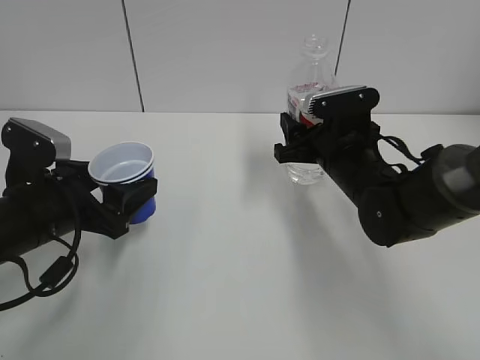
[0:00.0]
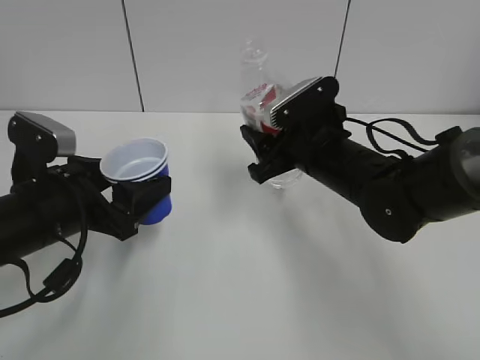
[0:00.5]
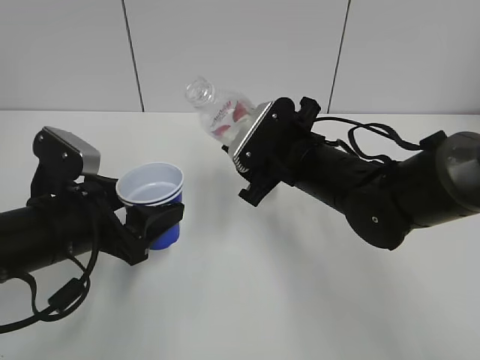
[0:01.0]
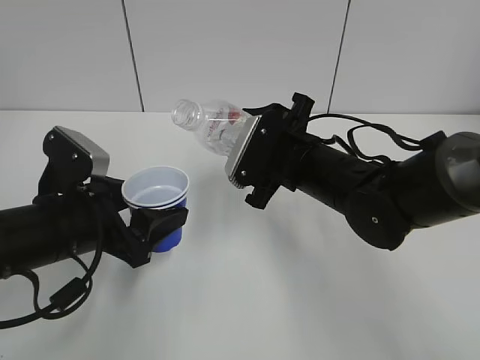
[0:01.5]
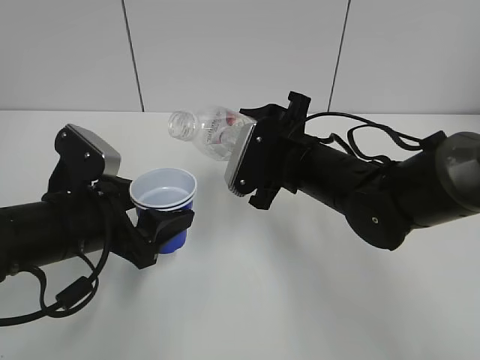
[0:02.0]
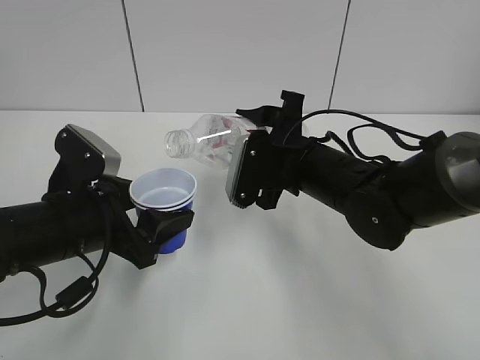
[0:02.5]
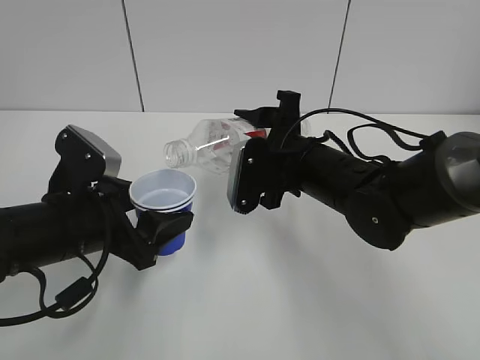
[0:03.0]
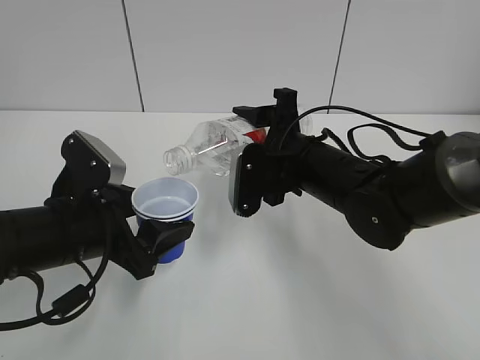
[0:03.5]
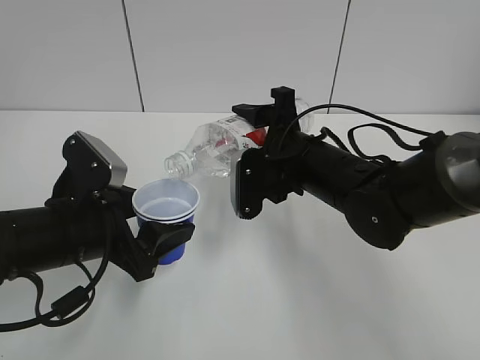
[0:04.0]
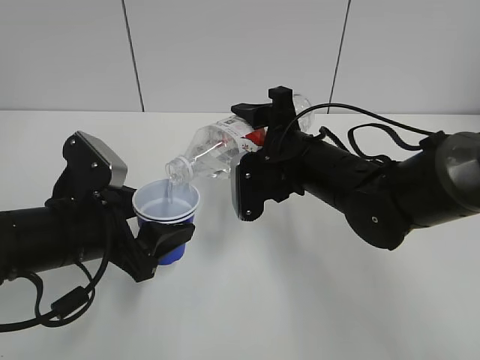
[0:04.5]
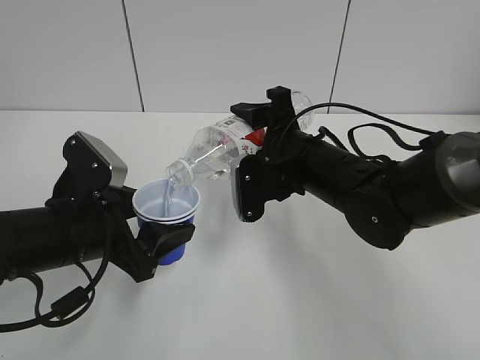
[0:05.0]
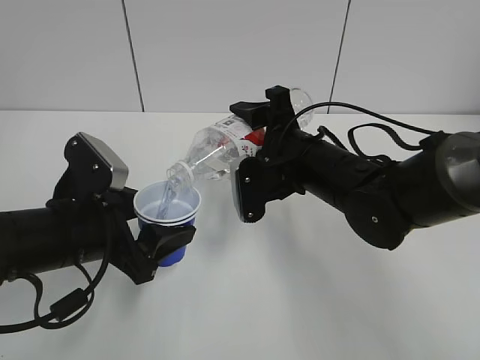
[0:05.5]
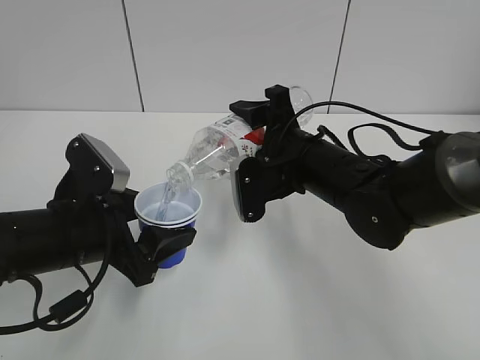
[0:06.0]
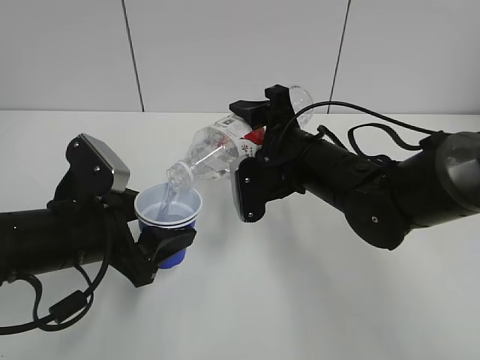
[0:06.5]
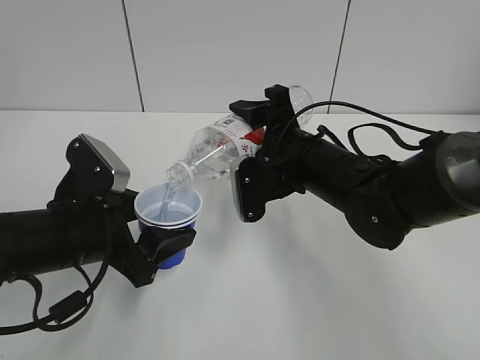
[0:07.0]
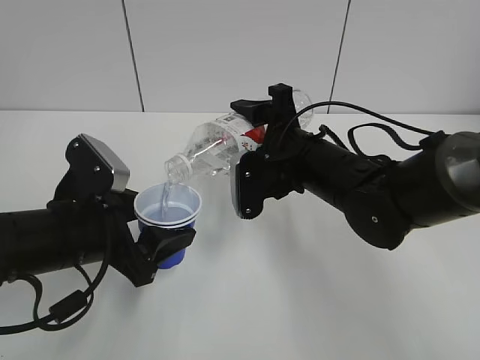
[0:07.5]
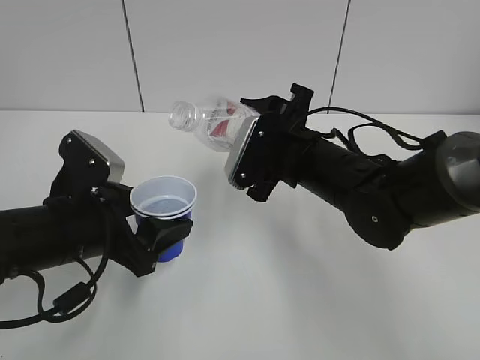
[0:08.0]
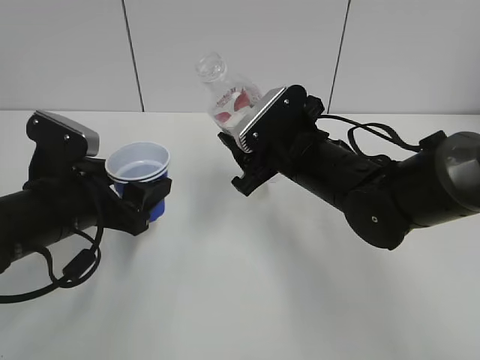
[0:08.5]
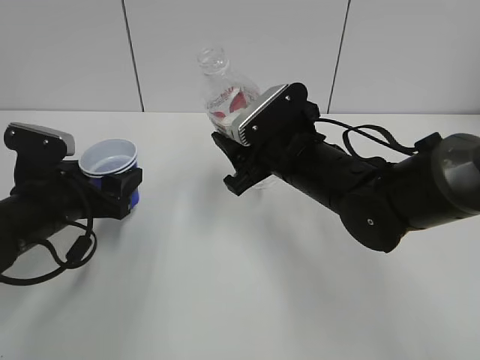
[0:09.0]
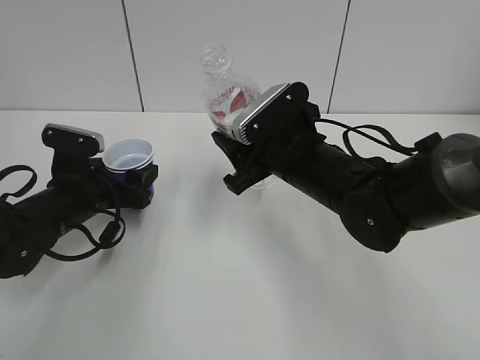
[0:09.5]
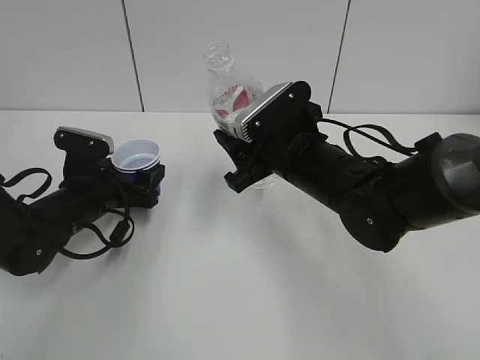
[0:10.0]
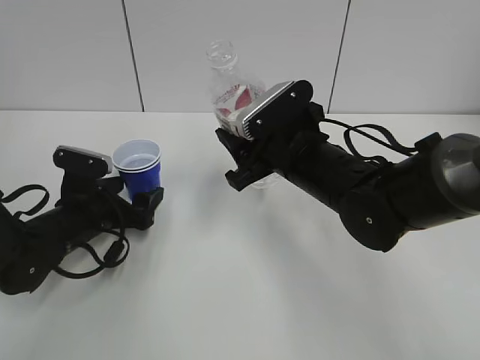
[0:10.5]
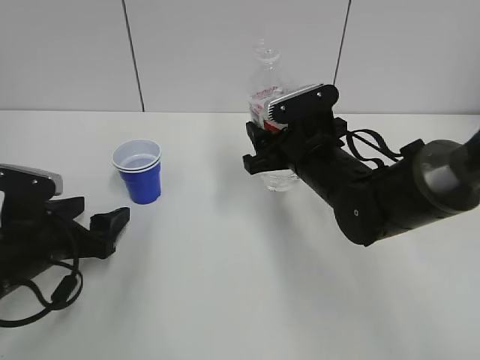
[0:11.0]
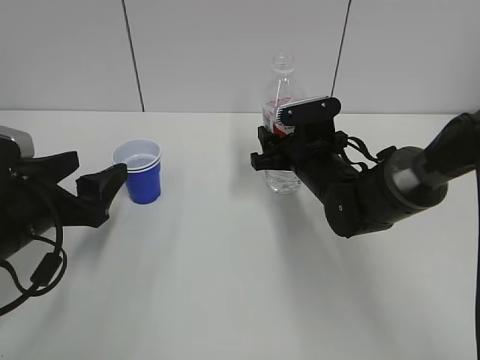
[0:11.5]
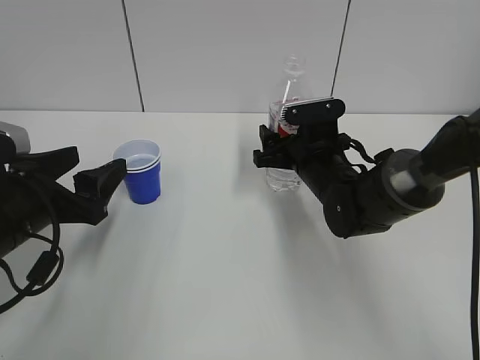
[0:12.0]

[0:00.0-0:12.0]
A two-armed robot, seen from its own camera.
Step, 0:01.0 to 0:07.5: Fill water with the left hand.
Step, 0:01.0 to 0:07.5: Pour water with the right hand.
Step, 0:08.5 to 0:10.0: Place the paper cup with the left hand.
0:00.0 to 0:02.0: The right gripper goes roughly 5 cm to the left.
0:04.0 to 0:06.0: There are only small adjustments of the grippers.
0:08.0 to 0:10.0: The left gripper travels forward and downward by about 15 cm.
0:10.0 to 0:12.0: The left gripper travels backward and upward by roughly 15 cm, while the right gripper shifts some 10 cm forward and downward, and opens its fingers.

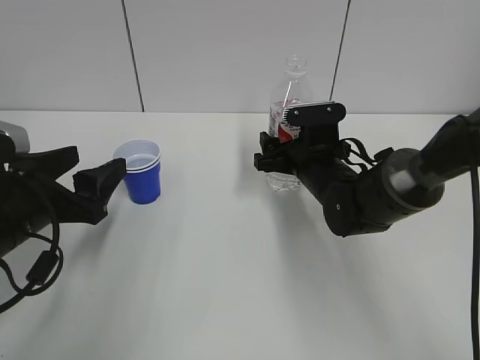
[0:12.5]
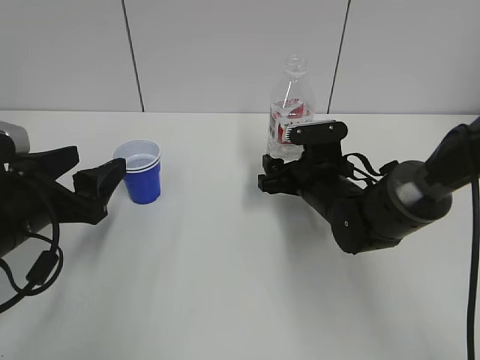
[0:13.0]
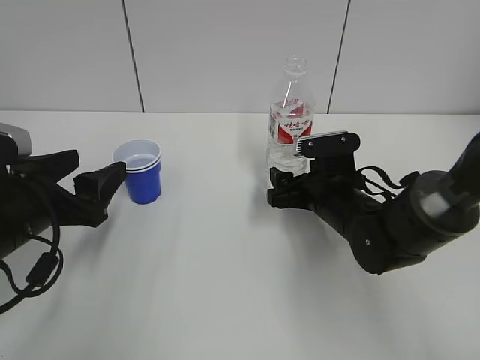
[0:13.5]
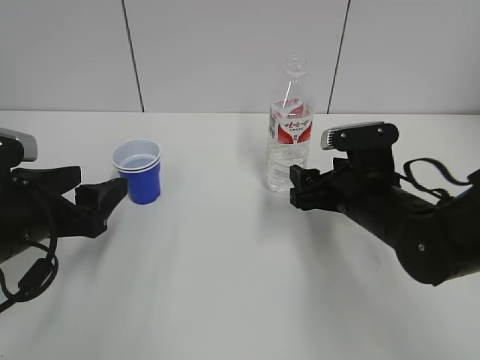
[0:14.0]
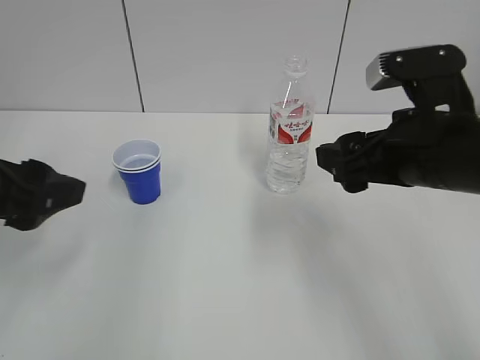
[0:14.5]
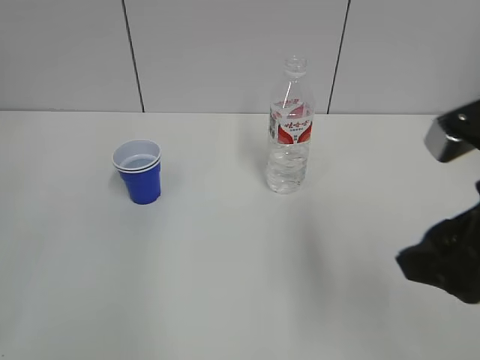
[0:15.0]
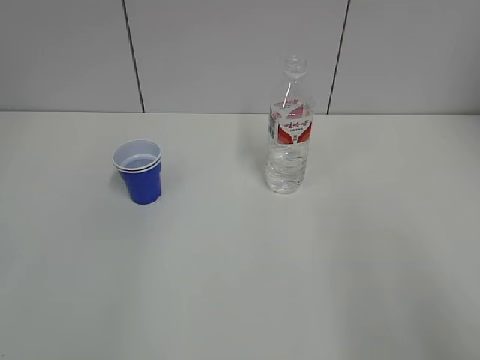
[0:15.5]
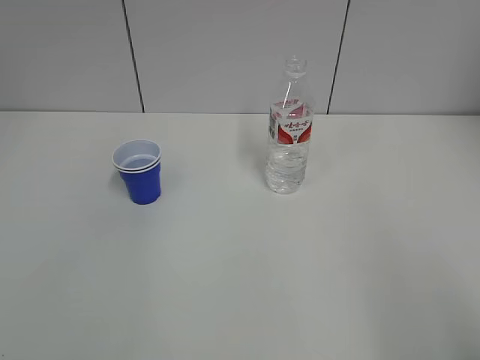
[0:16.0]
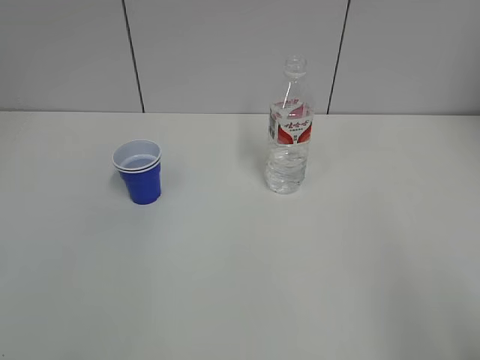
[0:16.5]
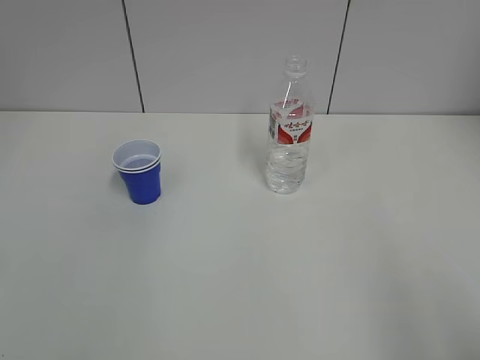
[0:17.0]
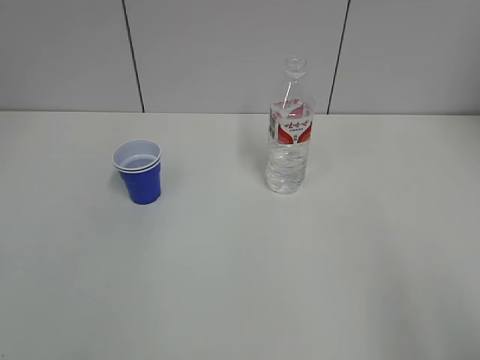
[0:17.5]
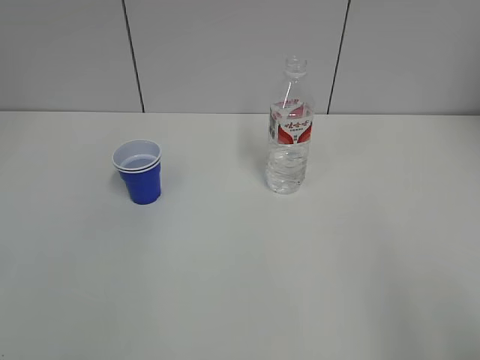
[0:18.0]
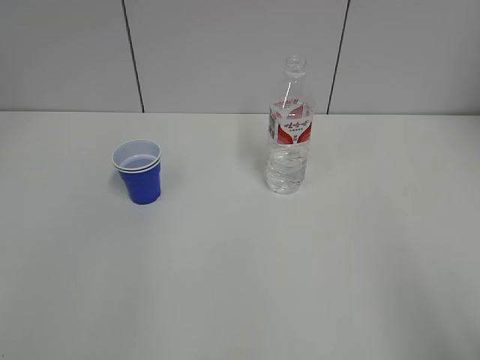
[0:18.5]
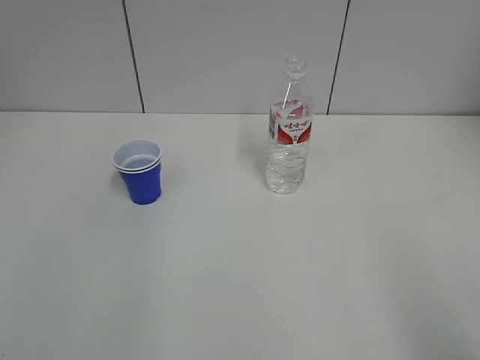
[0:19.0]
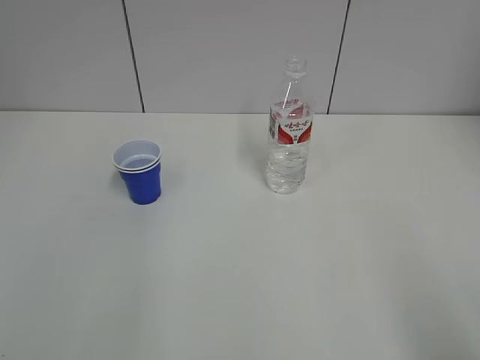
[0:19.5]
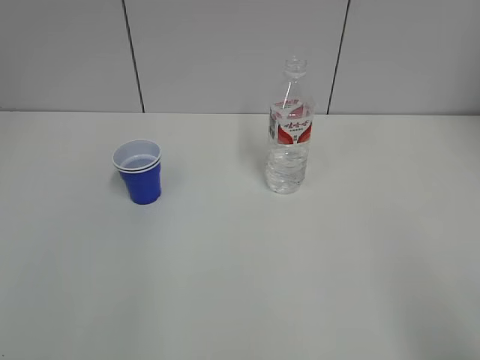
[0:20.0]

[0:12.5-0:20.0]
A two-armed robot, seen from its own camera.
0:12.5 to 0:14.5: The right gripper shifts about 20 cm backward and upward. The left gripper goes about 10 cm upward.
0:14.5 to 0:16.5: The right gripper moves backward and to the right, some 25 cm. Meanwhile the left gripper shifts some 20 cm backward and to the left.
0:16.5 to 0:18.0: The two grippers keep their place.
